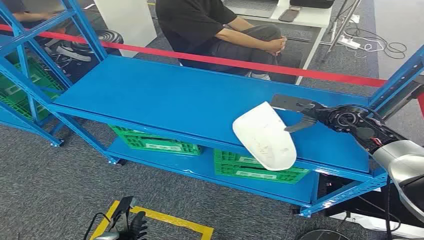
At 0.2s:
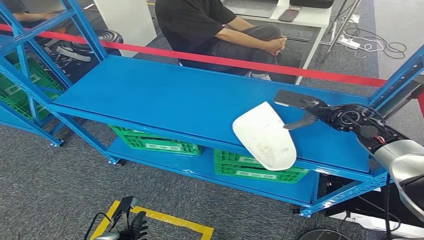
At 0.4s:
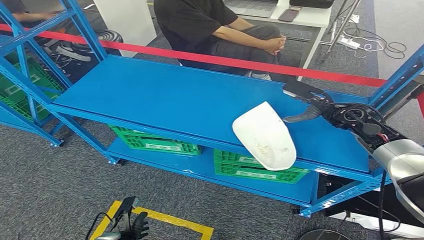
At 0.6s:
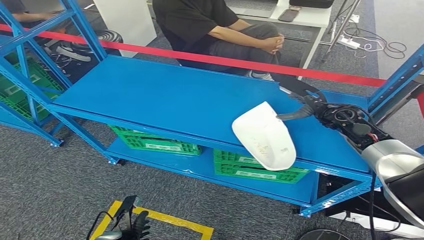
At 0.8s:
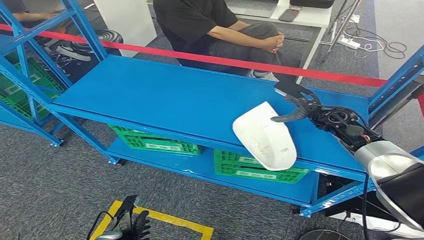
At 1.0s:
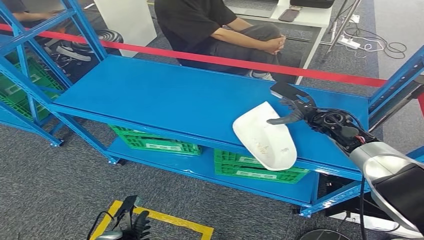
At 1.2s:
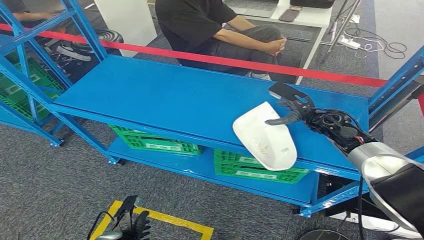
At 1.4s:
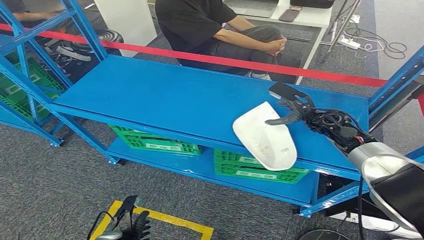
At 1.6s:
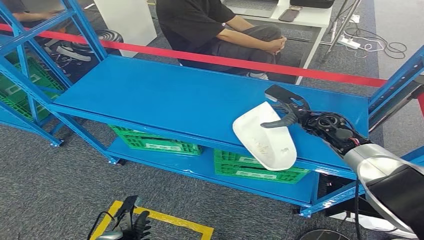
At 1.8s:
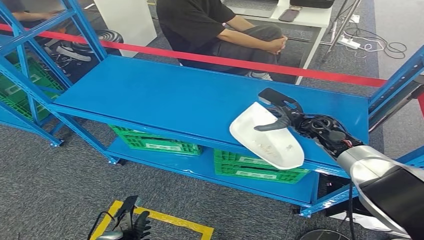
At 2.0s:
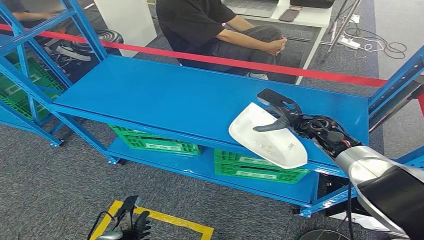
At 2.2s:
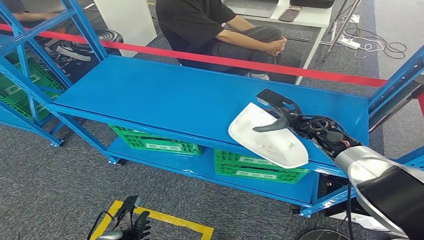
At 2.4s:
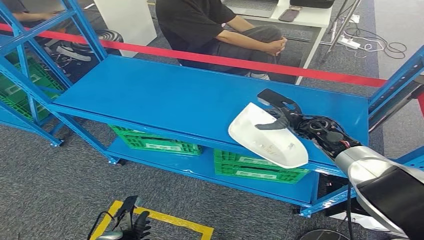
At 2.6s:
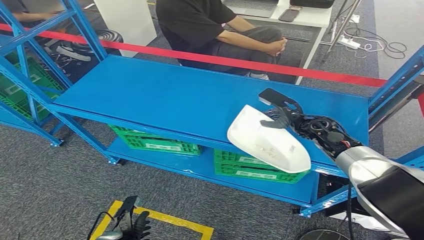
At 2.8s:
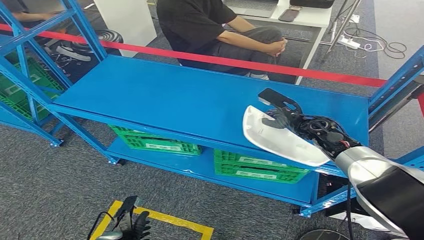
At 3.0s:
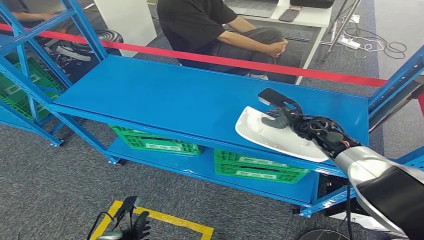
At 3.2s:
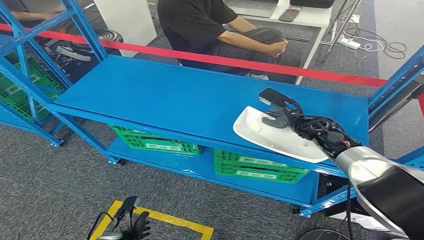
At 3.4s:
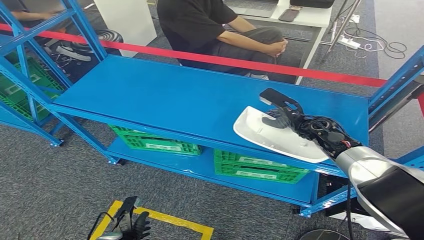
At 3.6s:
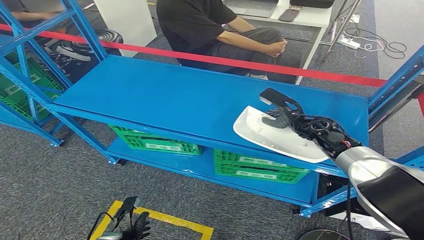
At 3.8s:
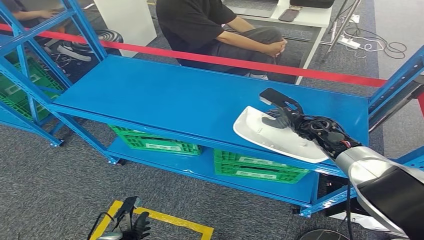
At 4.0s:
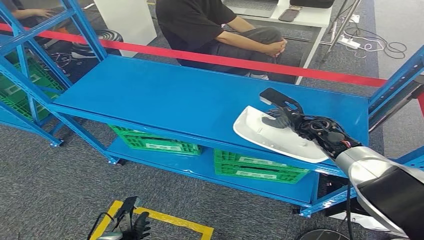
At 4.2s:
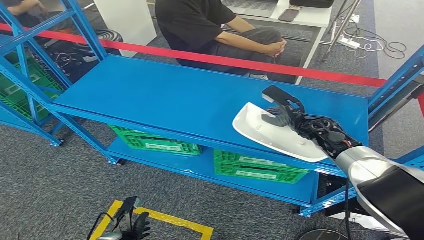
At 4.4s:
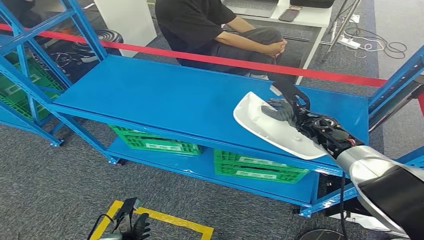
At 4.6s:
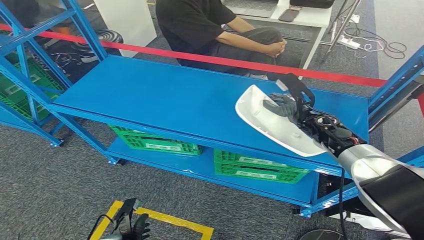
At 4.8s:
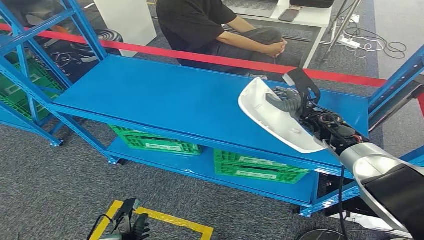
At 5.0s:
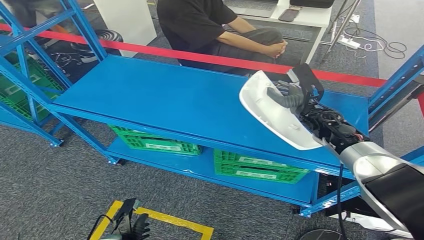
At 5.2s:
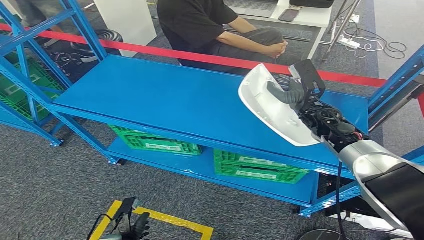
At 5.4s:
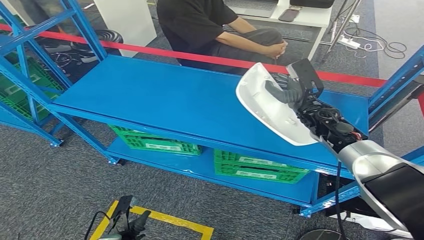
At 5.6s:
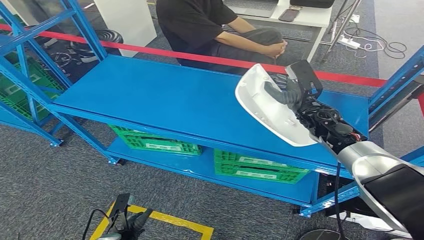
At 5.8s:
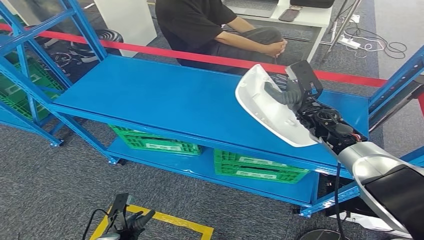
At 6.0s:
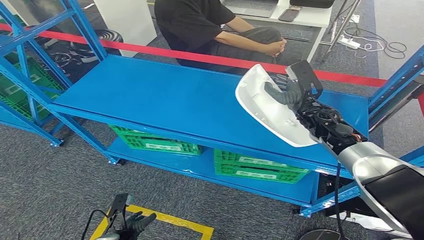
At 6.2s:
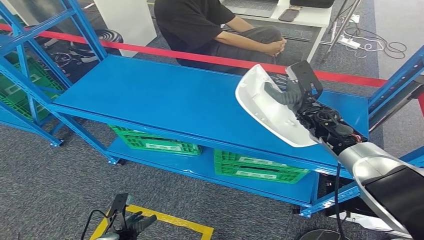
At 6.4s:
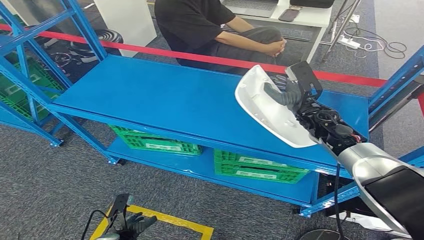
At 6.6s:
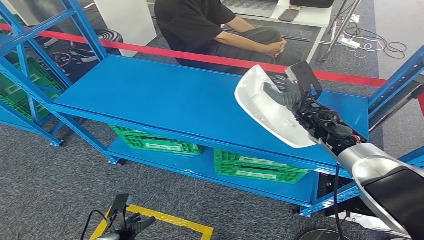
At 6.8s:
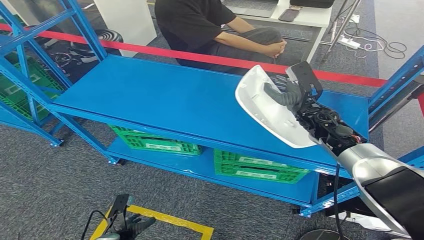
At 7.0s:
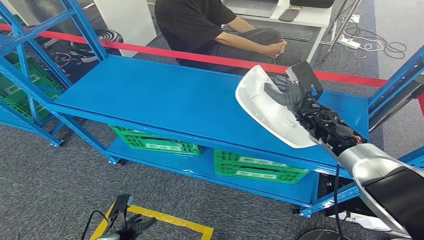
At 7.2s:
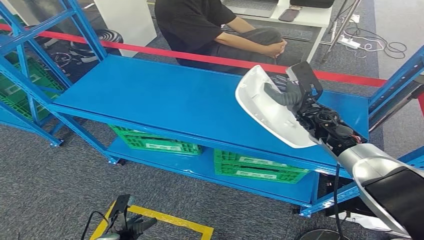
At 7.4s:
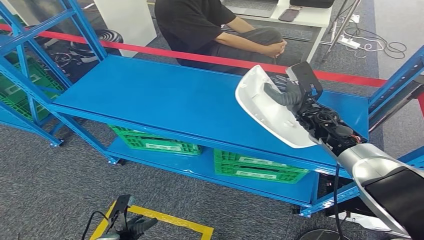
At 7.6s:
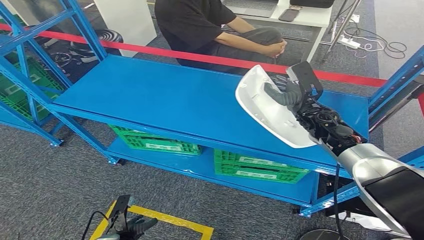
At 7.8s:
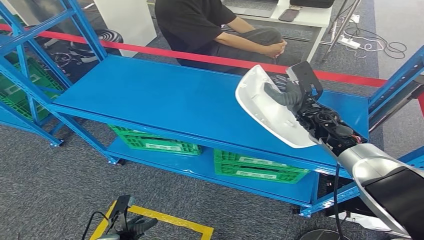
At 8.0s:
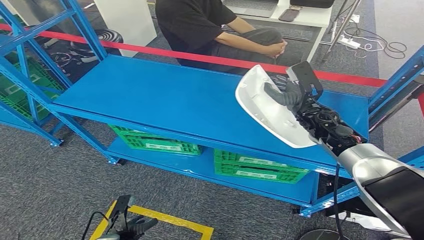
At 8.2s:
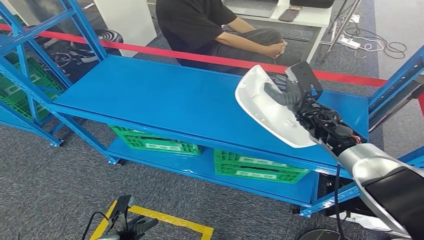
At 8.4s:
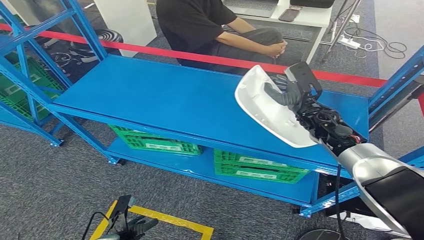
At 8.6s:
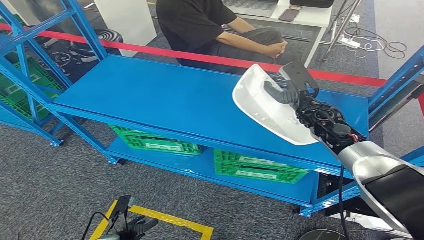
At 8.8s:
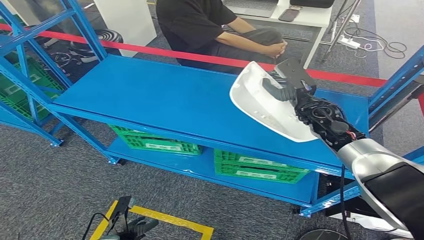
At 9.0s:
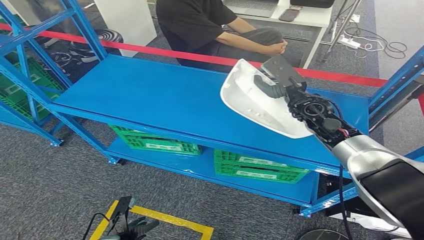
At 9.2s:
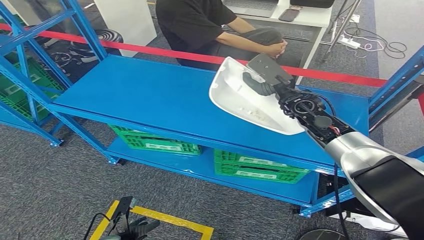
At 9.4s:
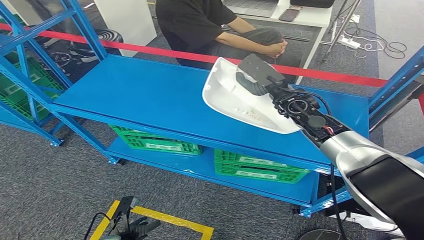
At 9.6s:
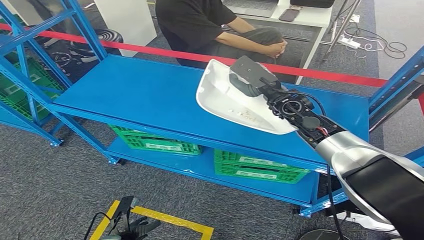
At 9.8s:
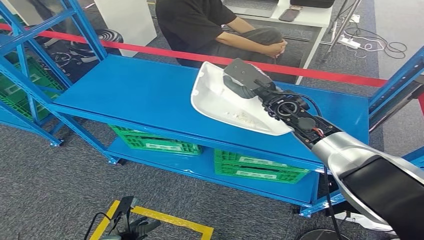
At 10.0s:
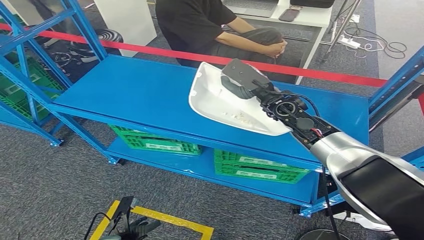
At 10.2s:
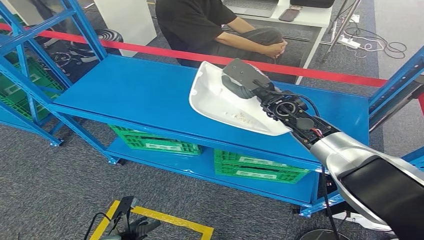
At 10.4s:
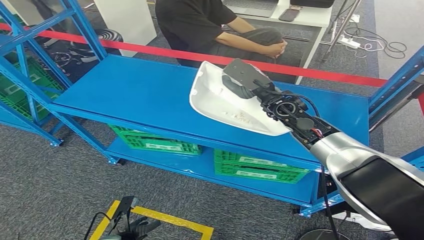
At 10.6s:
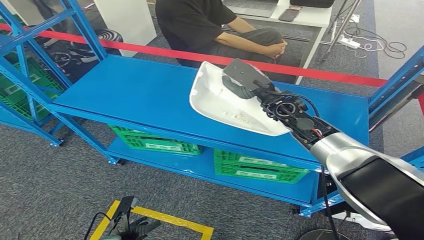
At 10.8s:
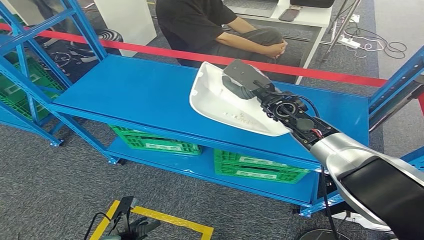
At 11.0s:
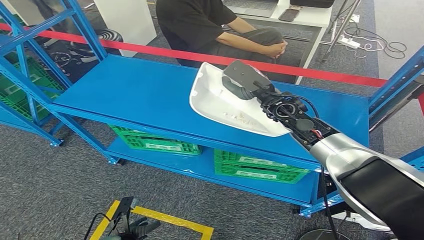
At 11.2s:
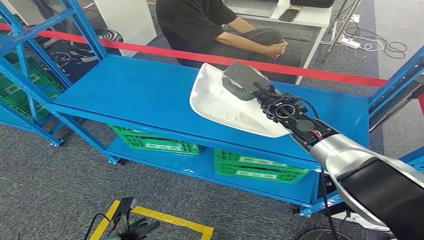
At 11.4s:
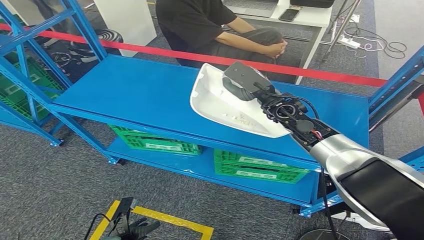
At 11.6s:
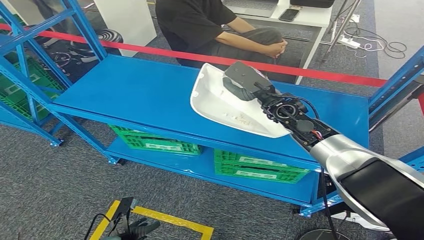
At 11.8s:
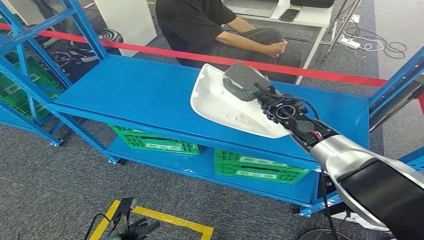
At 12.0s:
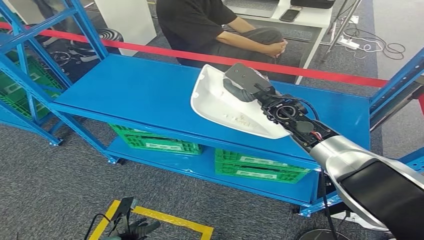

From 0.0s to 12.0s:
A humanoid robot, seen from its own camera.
Step, from 0.0s to 5.2s: Pick up the small parts from the shelf.
From 1.6s to 4.4s: The hands make only small movements.
From 6.0s to 7.6s: Both hands stay put.
From 7.6s to 9.0s: The hands make only small movements.
From 9.0s to 10.4s: The right hand goes approximately 5 cm to the left.
From 10.4s to 12.0s: The two hands keep their place.

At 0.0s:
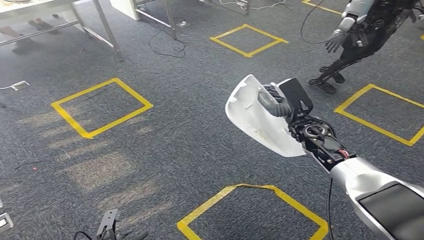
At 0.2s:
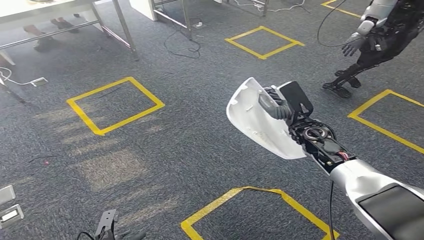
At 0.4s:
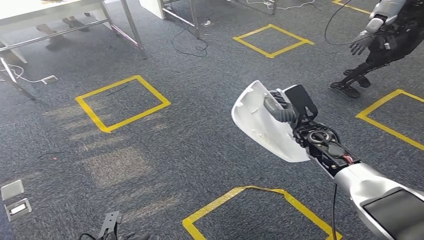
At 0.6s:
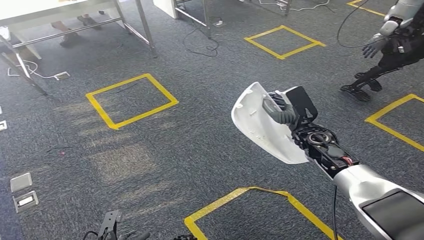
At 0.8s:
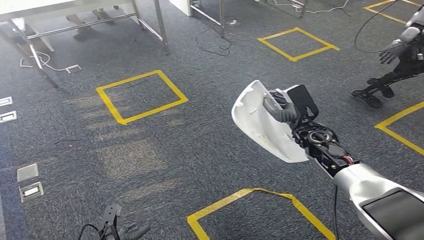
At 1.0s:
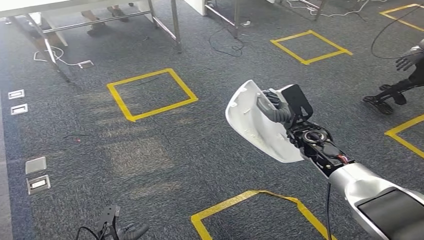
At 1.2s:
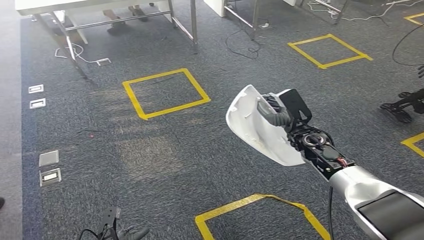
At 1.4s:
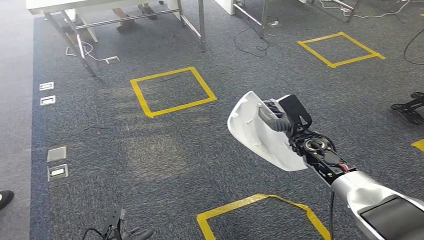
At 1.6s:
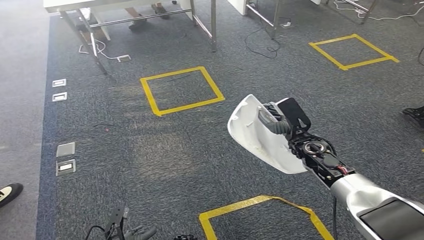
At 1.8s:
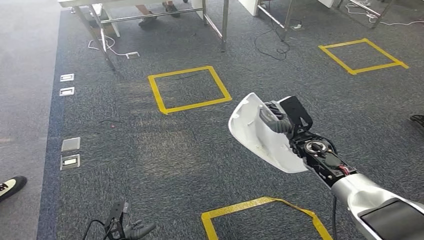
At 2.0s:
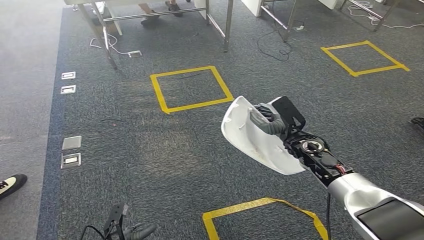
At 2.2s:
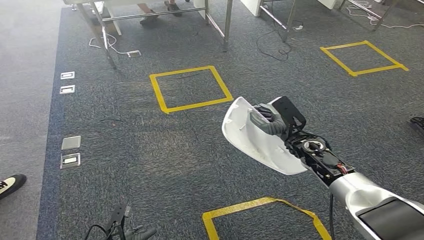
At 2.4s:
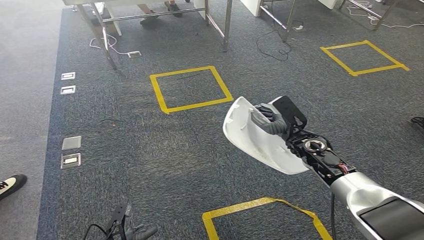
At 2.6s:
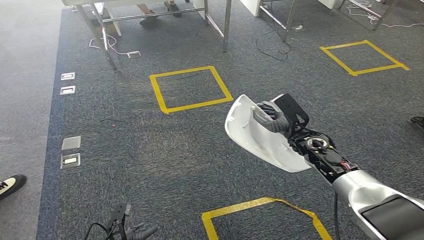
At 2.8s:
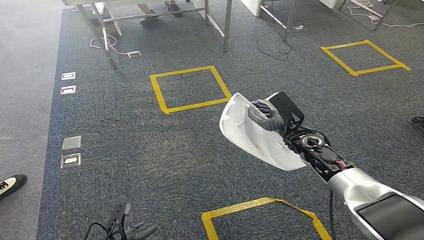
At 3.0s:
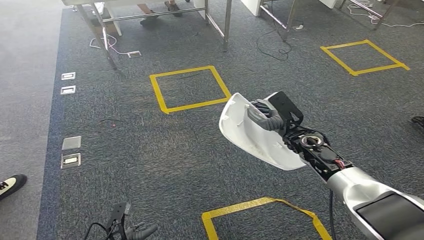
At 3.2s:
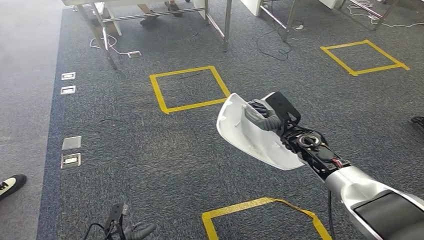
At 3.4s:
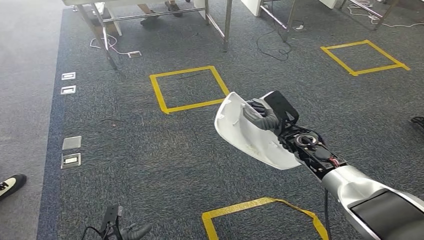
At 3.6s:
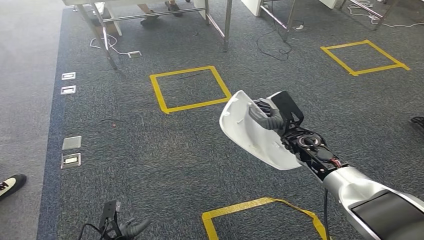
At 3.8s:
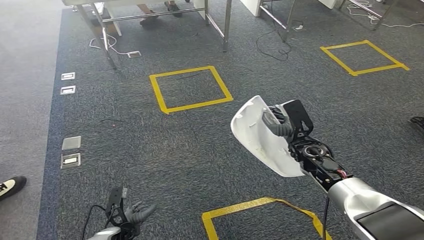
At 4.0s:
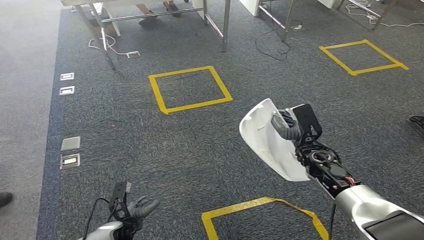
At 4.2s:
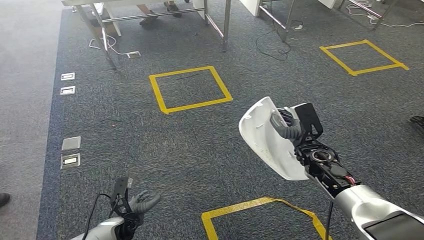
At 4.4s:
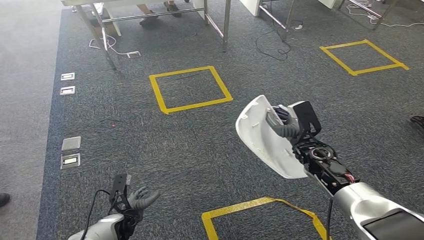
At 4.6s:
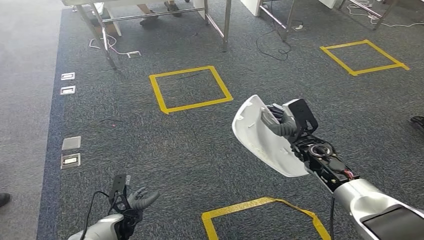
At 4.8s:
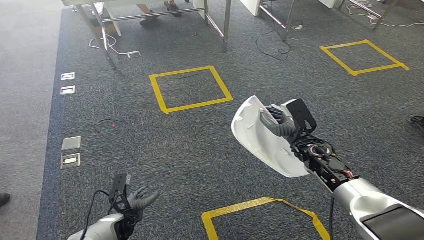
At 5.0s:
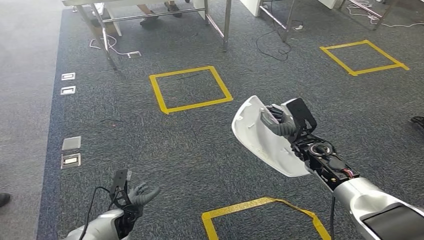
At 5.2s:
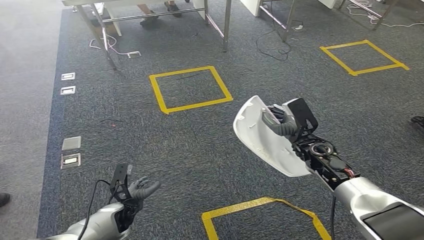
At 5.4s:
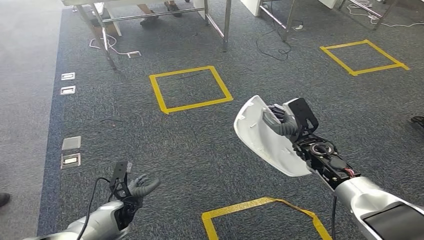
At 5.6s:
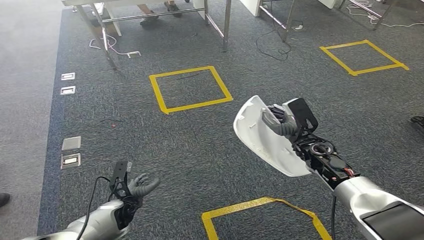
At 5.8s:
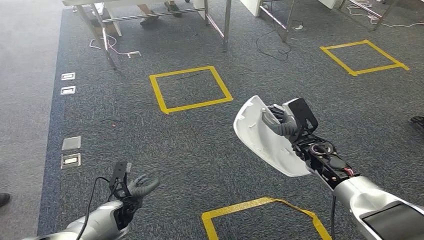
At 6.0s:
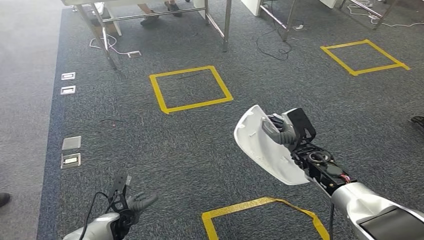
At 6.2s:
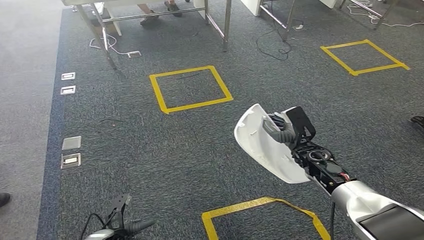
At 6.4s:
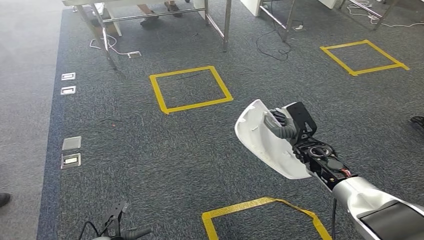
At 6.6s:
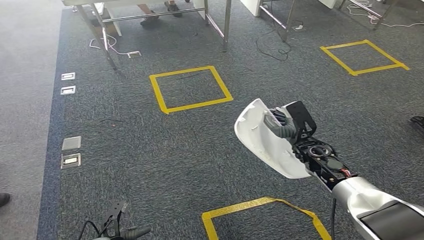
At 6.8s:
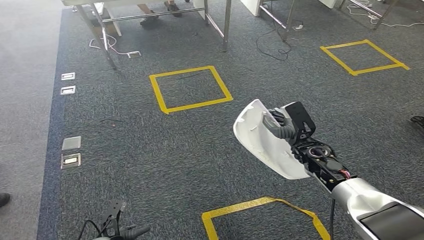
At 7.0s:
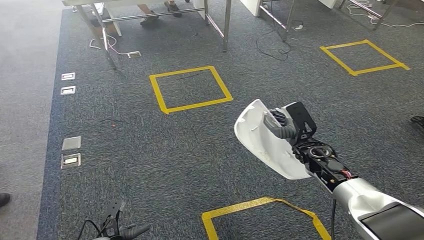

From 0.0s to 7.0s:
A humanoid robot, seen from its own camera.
From 2.8s to 4.2s: The left hand moves forward, some 10 cm. The right hand shifts by about 5 cm.
From 4.2s to 5.6s: The left hand goes about 5 cm forward.
From 5.6s to 7.0s: The left hand goes about 10 cm backward and downward.
